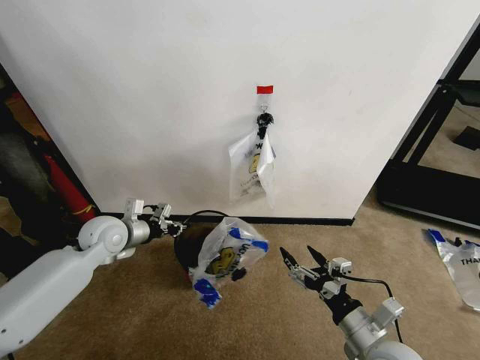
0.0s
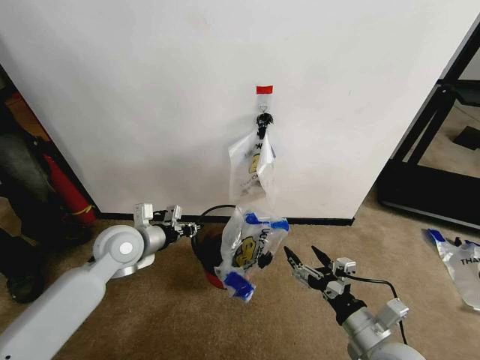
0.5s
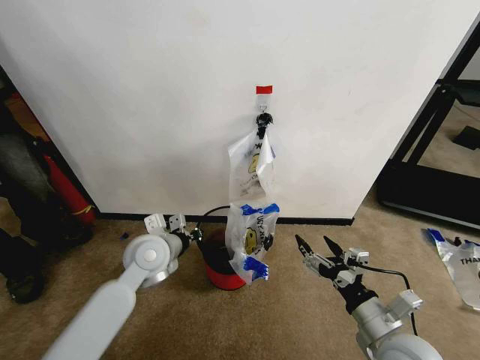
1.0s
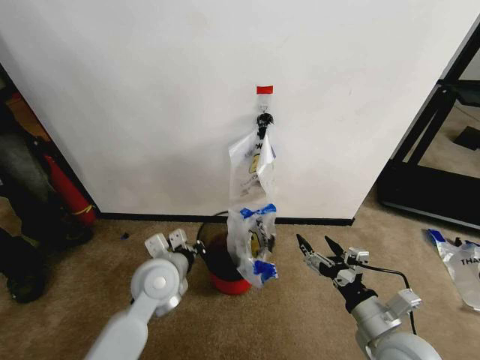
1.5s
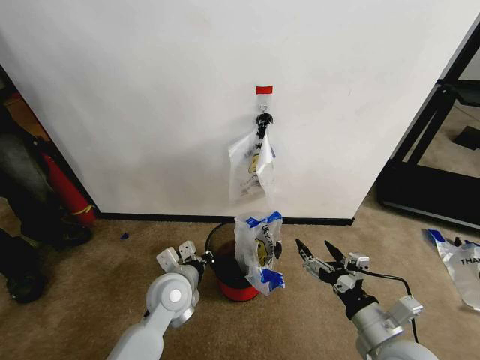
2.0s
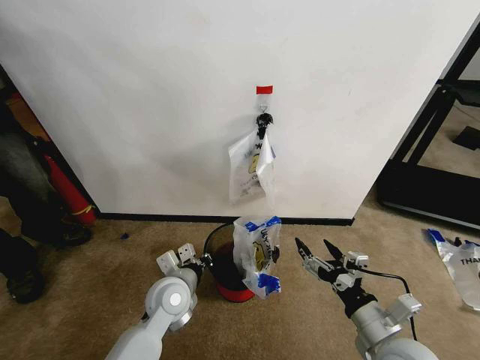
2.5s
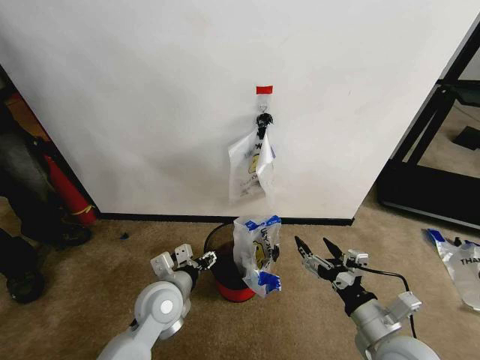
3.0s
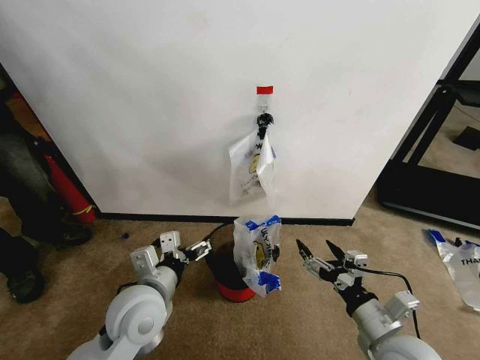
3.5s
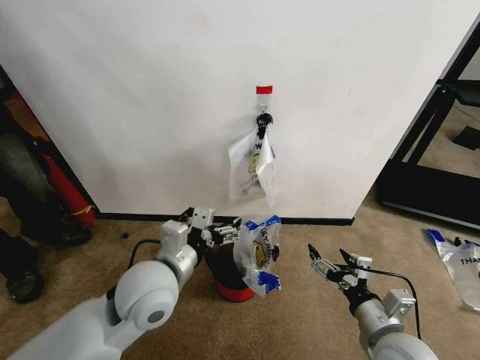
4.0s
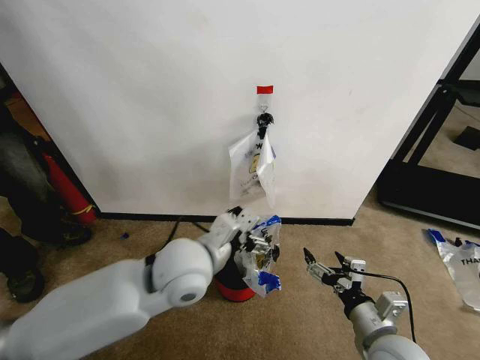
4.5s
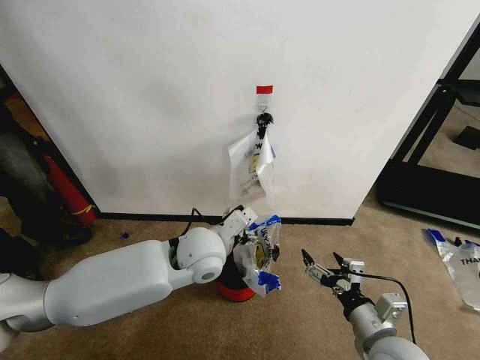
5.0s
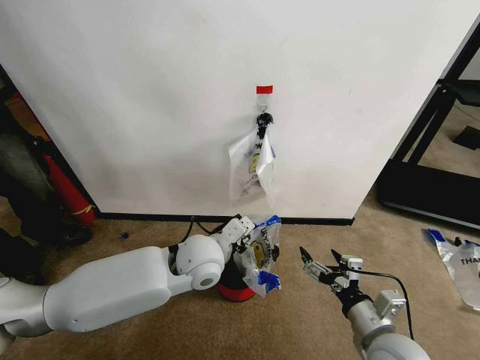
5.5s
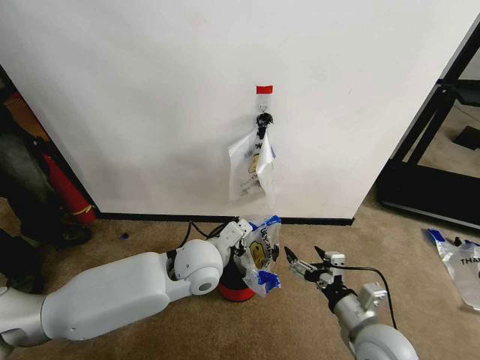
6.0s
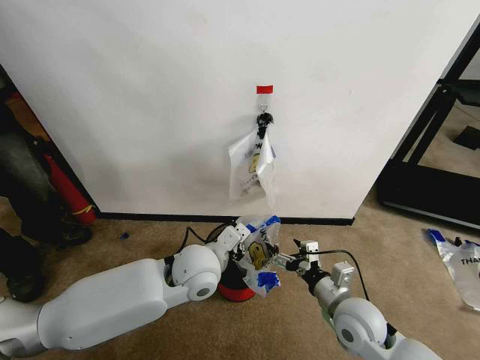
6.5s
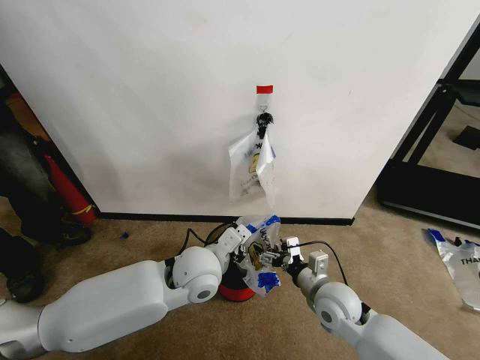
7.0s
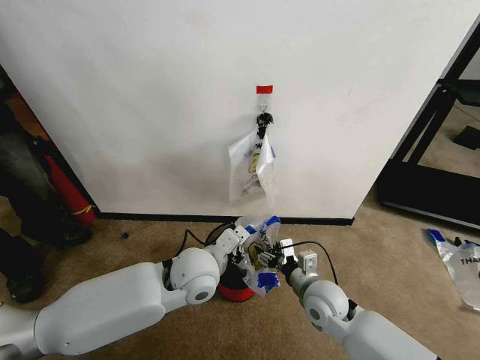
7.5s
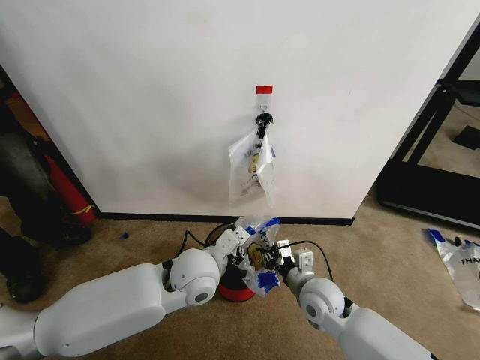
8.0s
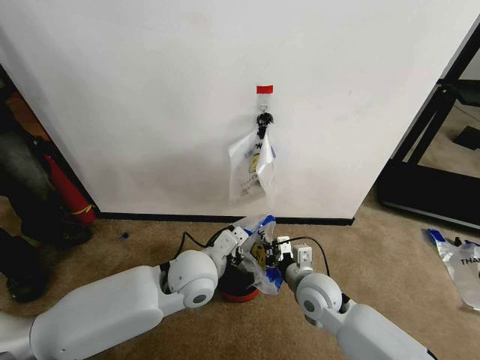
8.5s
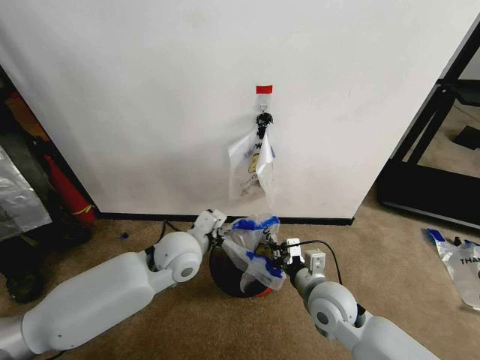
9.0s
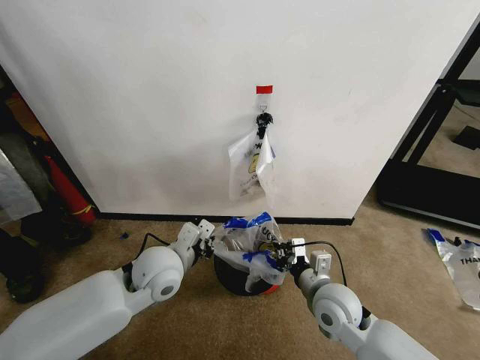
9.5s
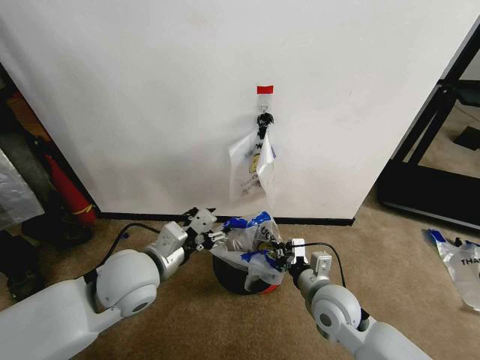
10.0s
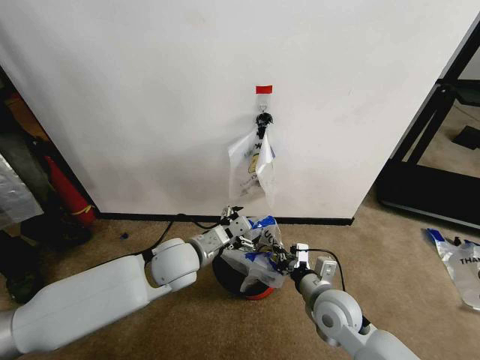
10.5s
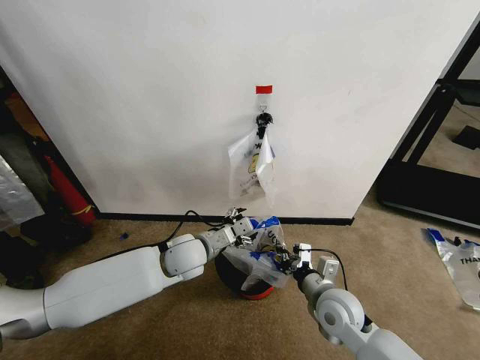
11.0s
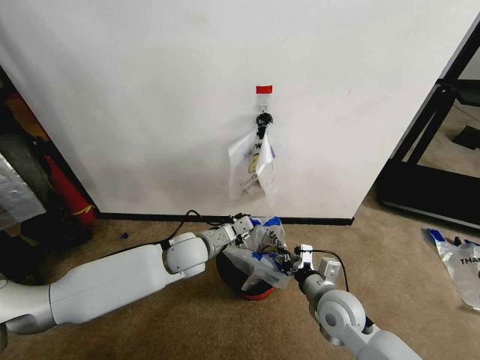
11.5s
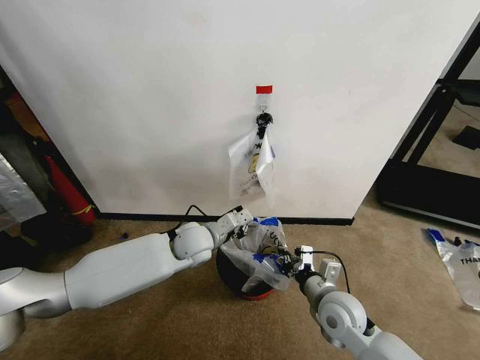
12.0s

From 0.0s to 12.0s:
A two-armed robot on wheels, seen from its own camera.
Task of the whole recording: Pick up the garbage bag from the wall and place it over the trash bin.
From 0.0s to 2.0s: The left gripper moves to the right, backward and downward, approximately 20 cm.
From 2.0s to 4.0s: The left gripper is displaced upward by some 15 cm, and opens its fingers.
From 4.0s to 6.0s: The left gripper moves forward and to the right, roughly 10 cm, and closes.
From 6.0s to 8.0s: The right gripper moves forward and to the left, approximately 15 cm, and closes up.
From 8.0s to 10.0s: The left gripper shifts roughly 10 cm to the left, and opens up.
From 10.0s to 12.0s: The left gripper moves forward, downward and to the right, approximately 20 cm, and closes up.

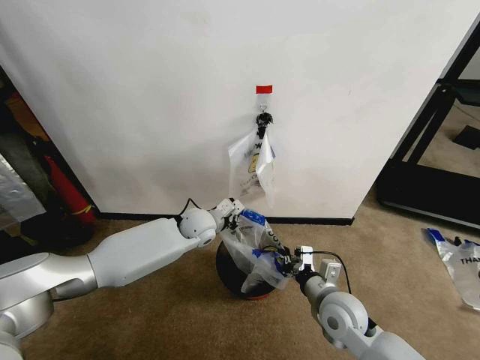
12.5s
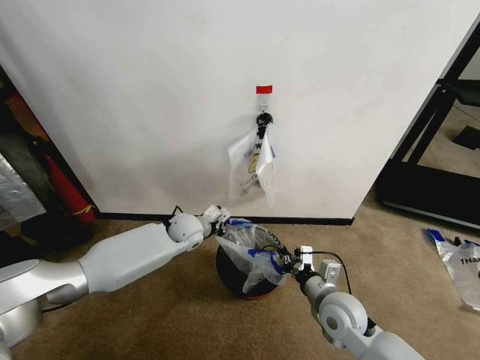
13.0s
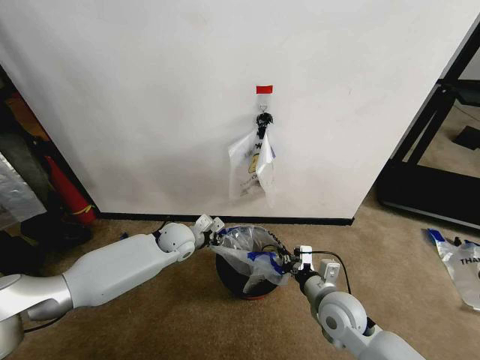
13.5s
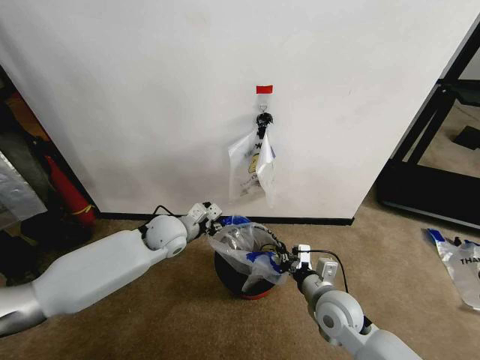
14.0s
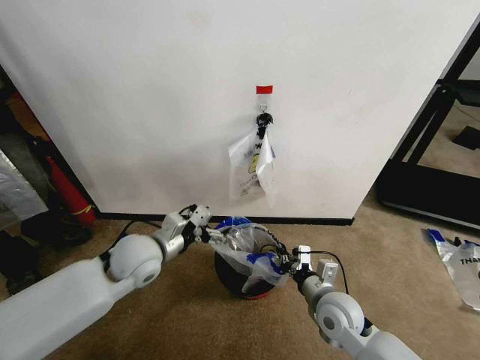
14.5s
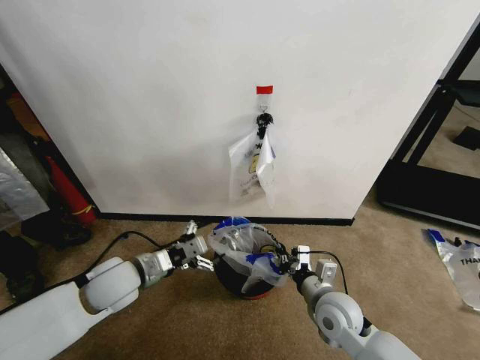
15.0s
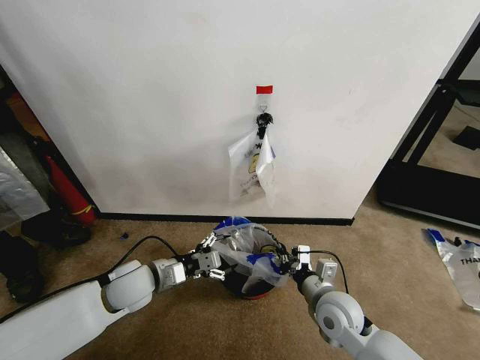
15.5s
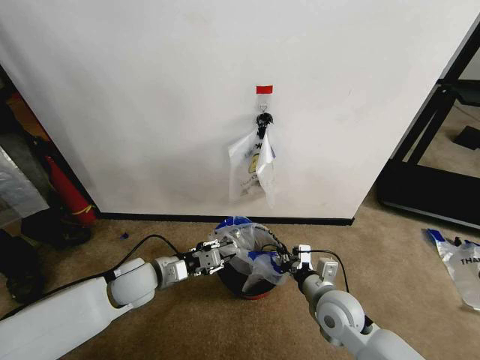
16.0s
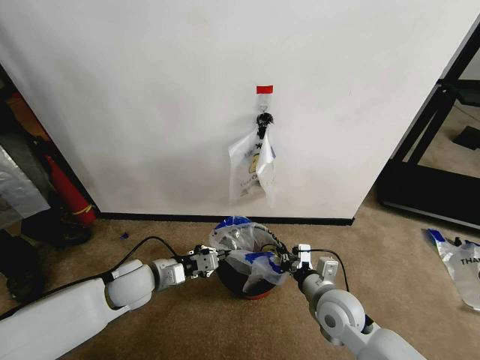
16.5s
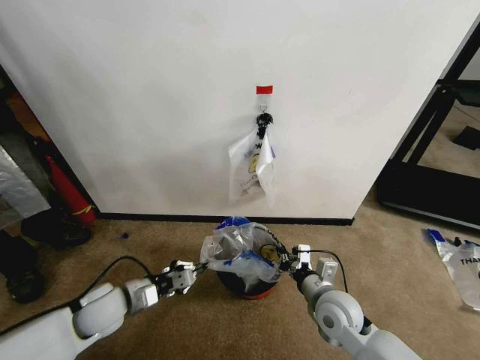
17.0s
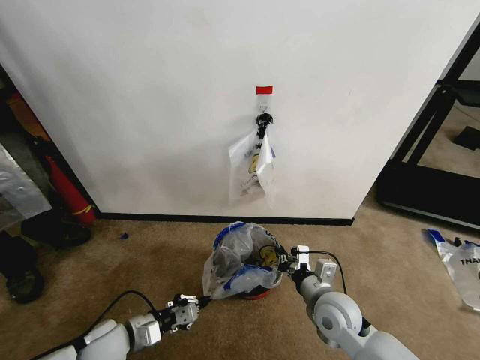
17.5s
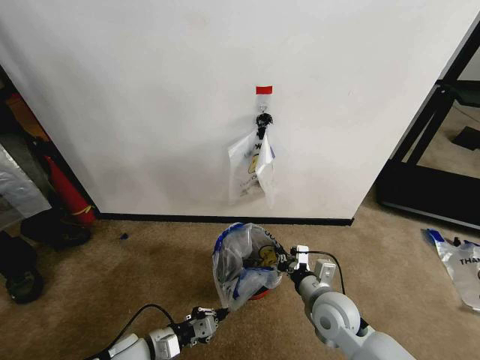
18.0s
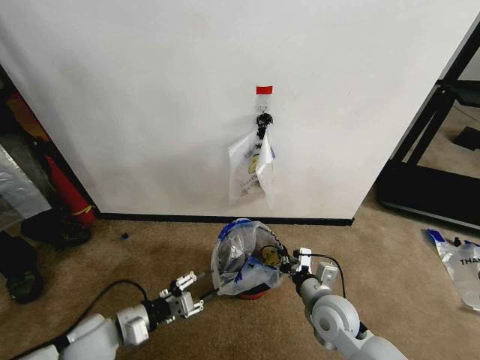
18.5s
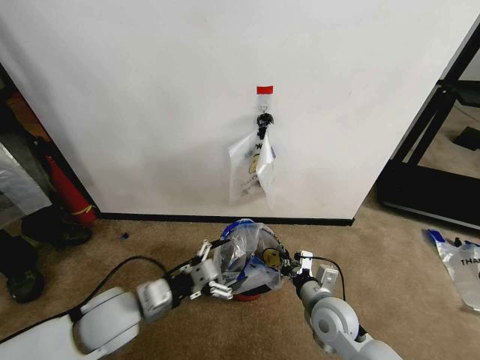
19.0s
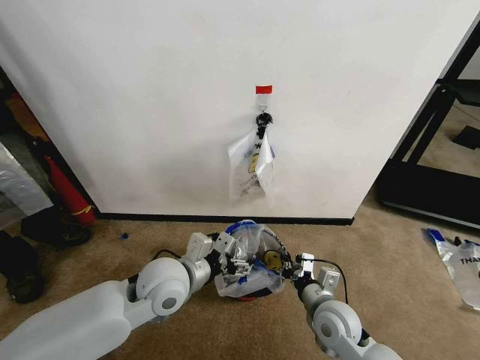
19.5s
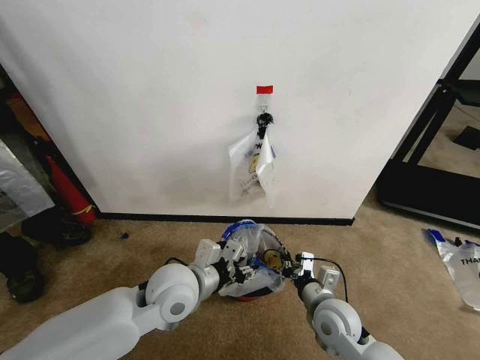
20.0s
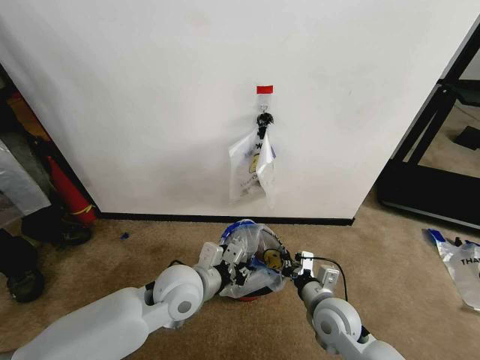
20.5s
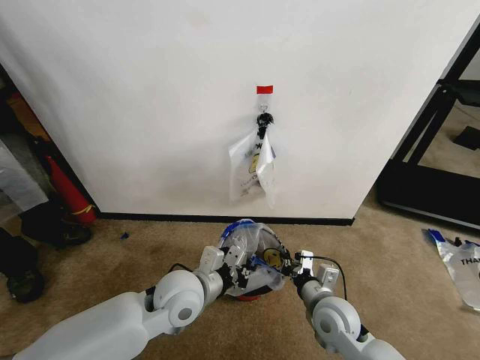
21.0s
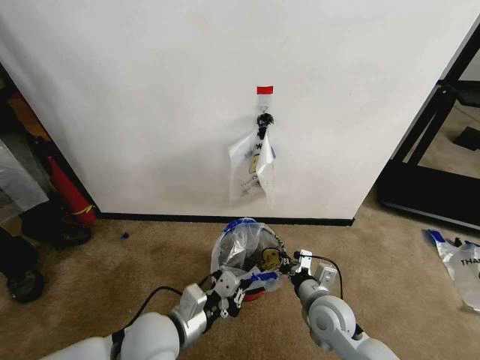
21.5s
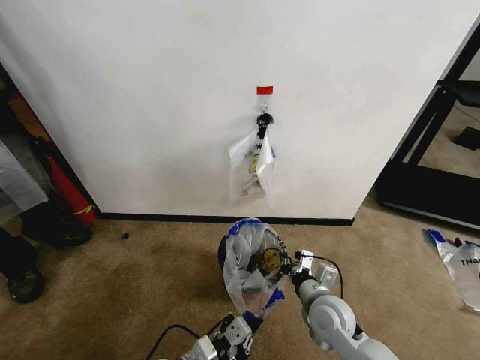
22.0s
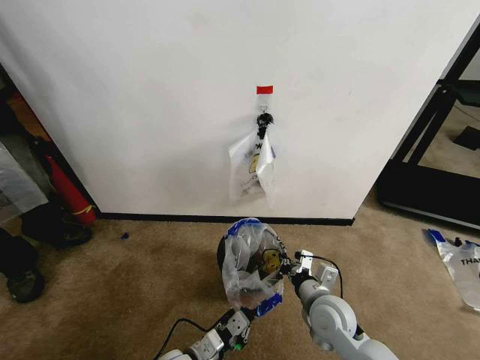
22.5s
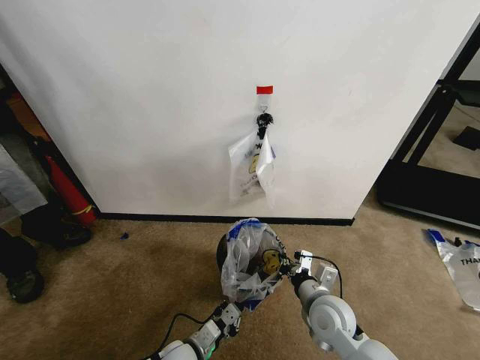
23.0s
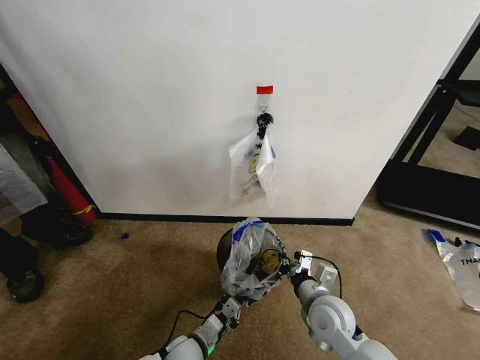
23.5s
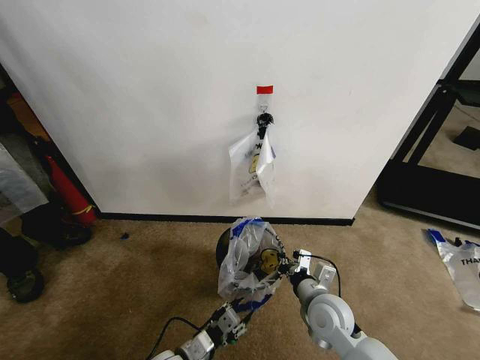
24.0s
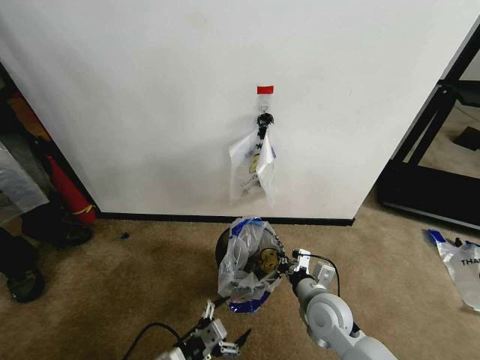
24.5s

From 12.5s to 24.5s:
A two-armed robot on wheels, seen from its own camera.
Task of the whole recording: Pick up the garbage bag from the wall and place it over the trash bin.
From 12.5s to 14.5s: The left gripper is displaced backward, to the left and upward by about 20 cm, and opens up.
From 14.5s to 16.5s: The left gripper heads downward, covering approximately 10 cm, and closes its fingers.
From 16.5s to 18.5s: The left gripper is displaced backward by about 10 cm, and opens its fingers.
From 18.5s to 20.5s: The left gripper heads to the right, upward and forward, covering about 20 cm, and opens and closes again.
From 20.5s to 22.5s: The left gripper moves downward and backward, approximately 20 cm.
From 22.5s to 24.5s: The left gripper moves to the left and upward, some 10 cm, and opens.

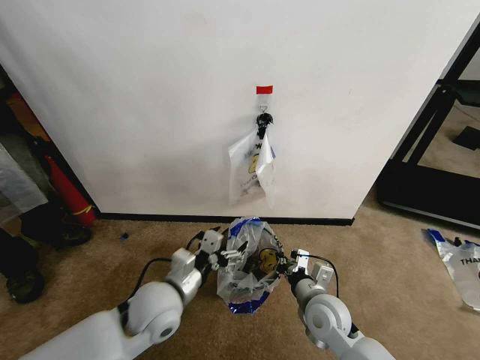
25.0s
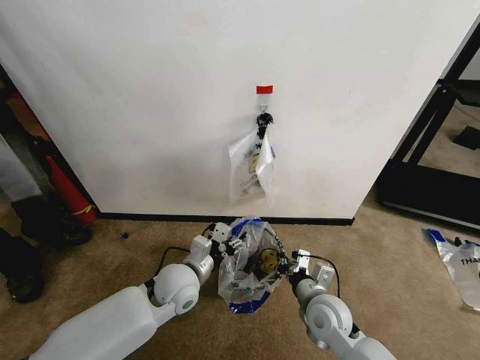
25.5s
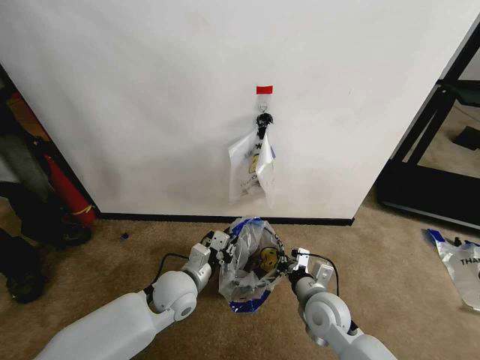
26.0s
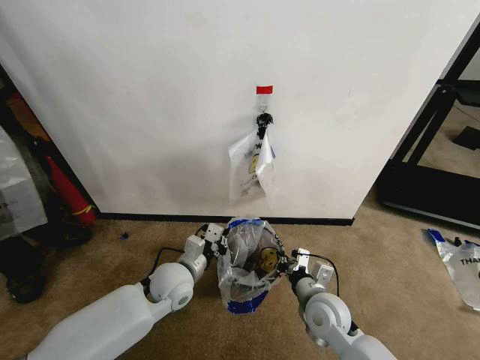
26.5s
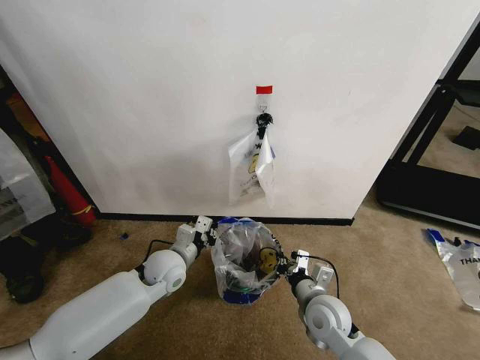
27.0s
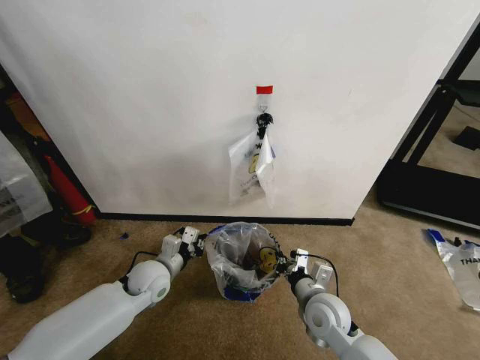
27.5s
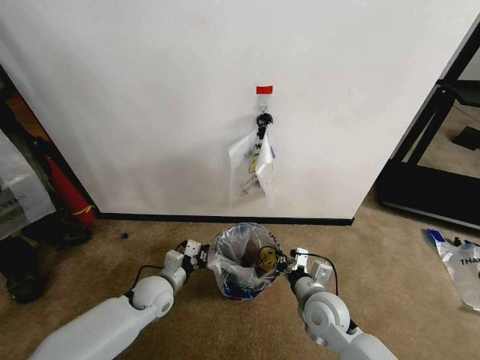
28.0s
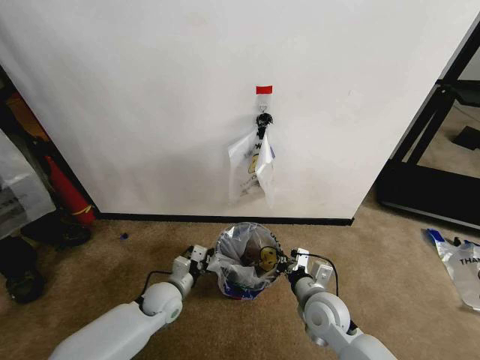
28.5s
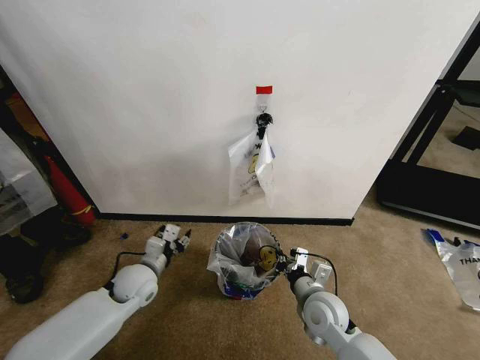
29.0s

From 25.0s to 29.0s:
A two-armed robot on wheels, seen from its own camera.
Task of the whole recording: Pick up the garbage bag from the wall and place it over the trash bin.
From 25.0s to 27.0s: The left gripper moves forward and downward, approximately 10 cm, and closes up.
From 27.0s to 29.0s: The left gripper goes approximately 5 cm to the left, travels downward and back again, some 10 cm each way, and opens.
